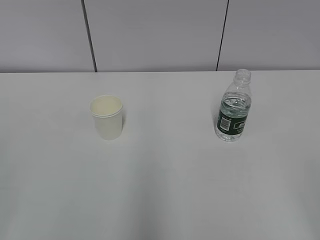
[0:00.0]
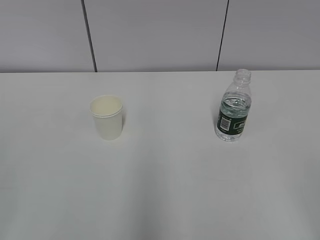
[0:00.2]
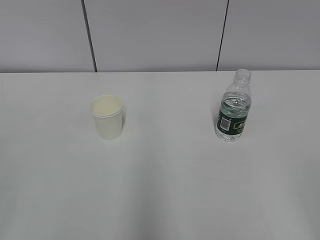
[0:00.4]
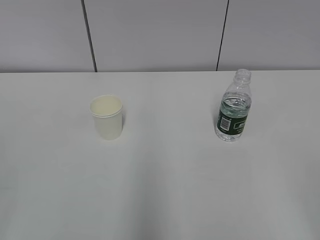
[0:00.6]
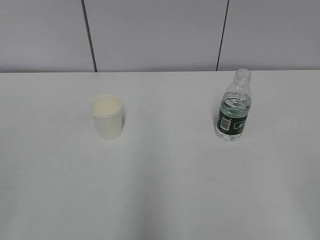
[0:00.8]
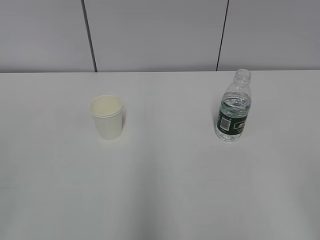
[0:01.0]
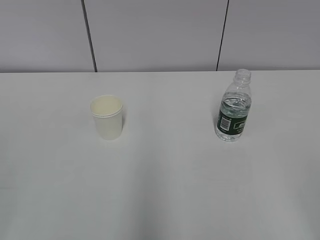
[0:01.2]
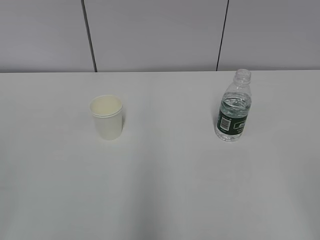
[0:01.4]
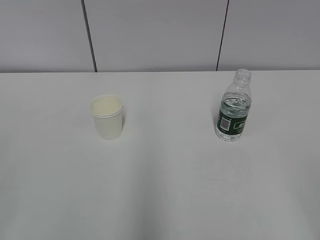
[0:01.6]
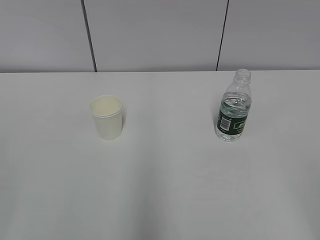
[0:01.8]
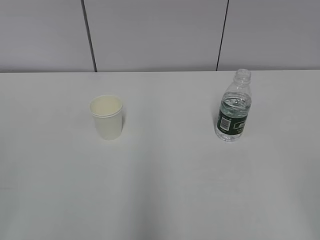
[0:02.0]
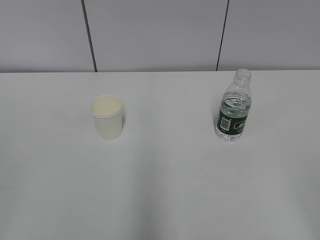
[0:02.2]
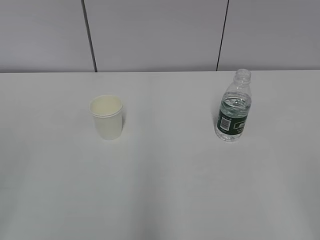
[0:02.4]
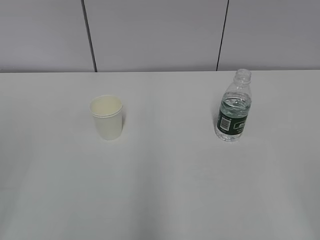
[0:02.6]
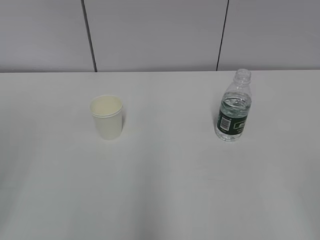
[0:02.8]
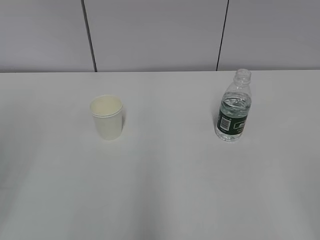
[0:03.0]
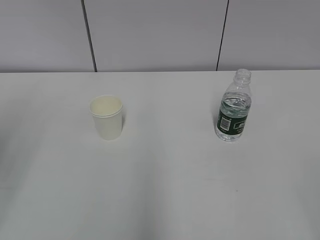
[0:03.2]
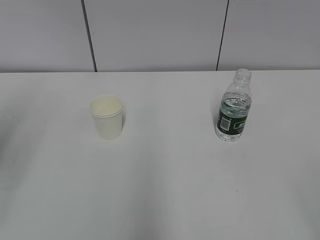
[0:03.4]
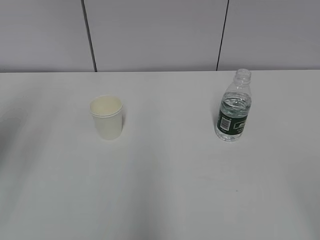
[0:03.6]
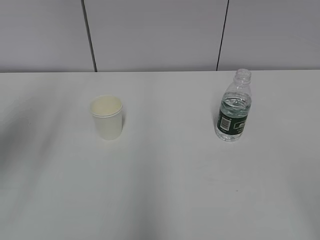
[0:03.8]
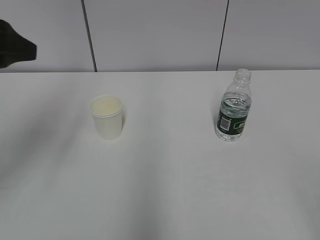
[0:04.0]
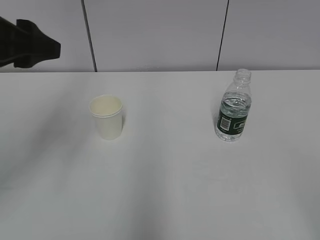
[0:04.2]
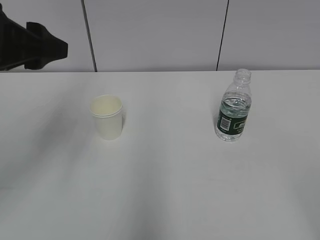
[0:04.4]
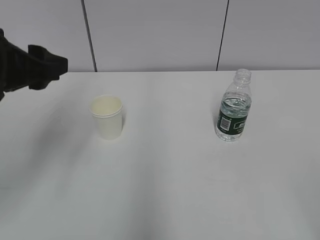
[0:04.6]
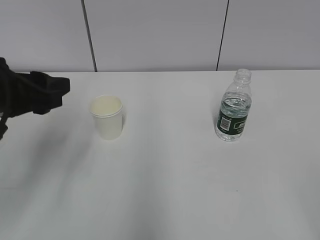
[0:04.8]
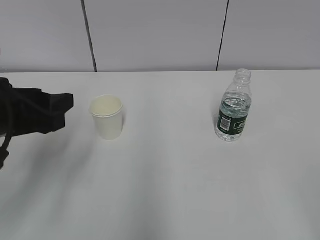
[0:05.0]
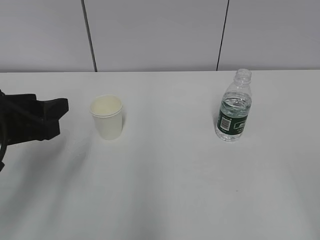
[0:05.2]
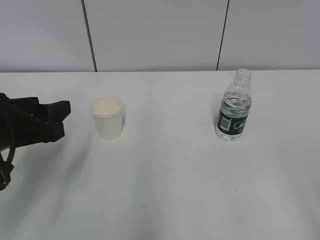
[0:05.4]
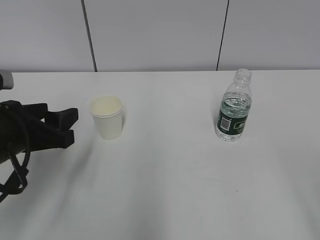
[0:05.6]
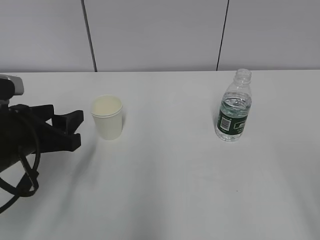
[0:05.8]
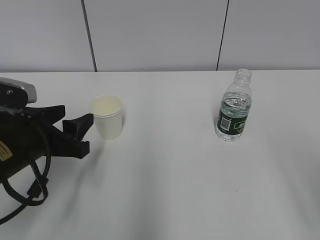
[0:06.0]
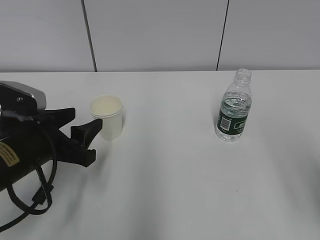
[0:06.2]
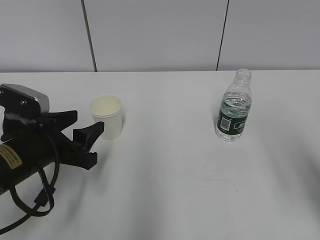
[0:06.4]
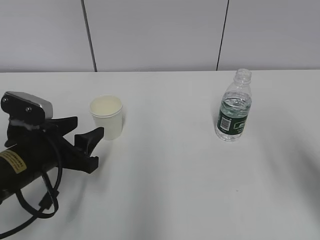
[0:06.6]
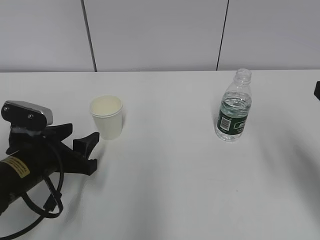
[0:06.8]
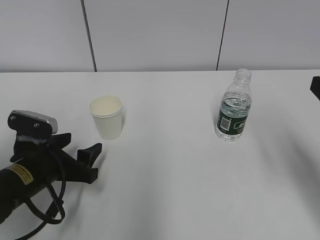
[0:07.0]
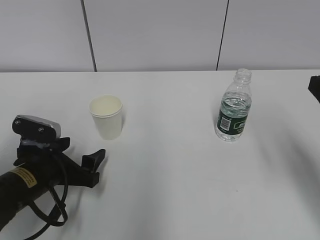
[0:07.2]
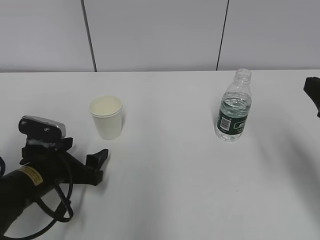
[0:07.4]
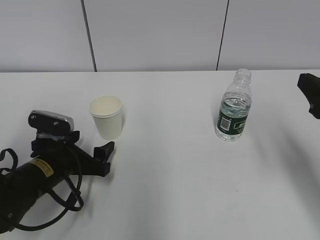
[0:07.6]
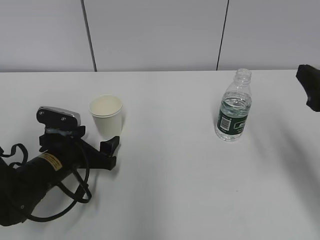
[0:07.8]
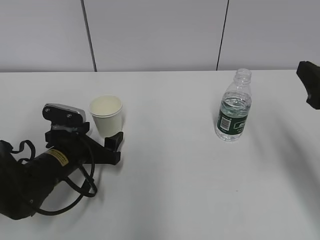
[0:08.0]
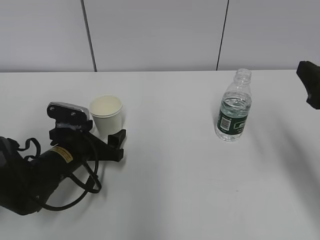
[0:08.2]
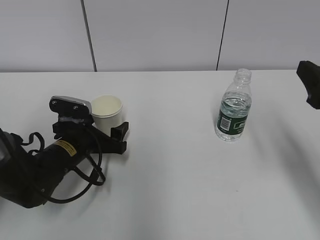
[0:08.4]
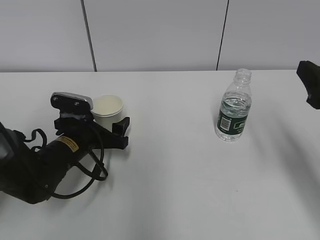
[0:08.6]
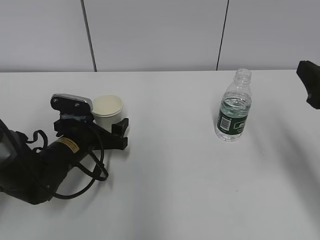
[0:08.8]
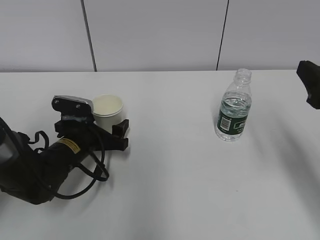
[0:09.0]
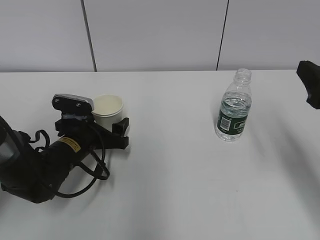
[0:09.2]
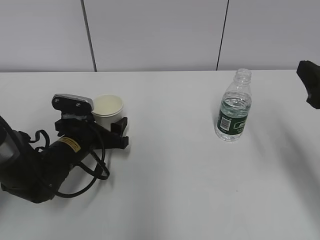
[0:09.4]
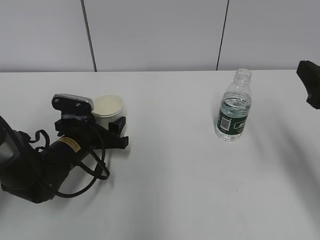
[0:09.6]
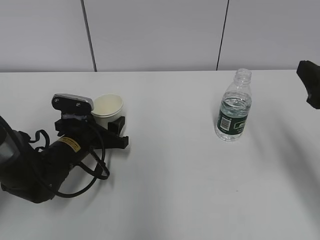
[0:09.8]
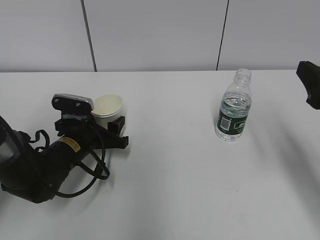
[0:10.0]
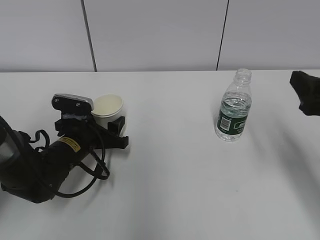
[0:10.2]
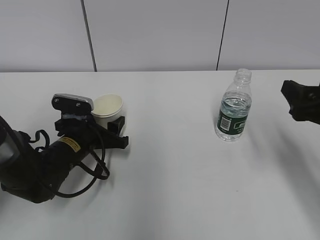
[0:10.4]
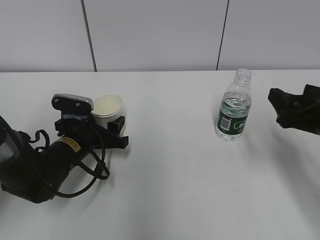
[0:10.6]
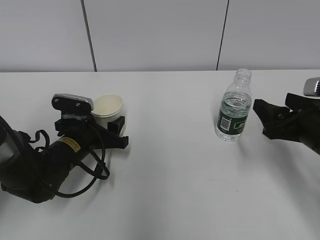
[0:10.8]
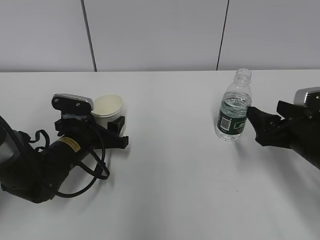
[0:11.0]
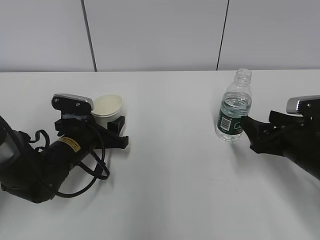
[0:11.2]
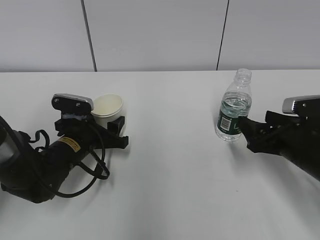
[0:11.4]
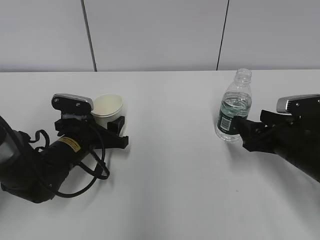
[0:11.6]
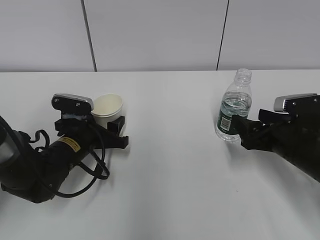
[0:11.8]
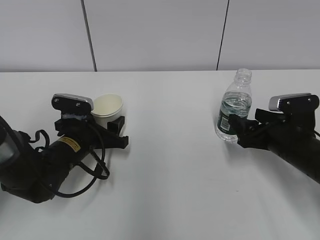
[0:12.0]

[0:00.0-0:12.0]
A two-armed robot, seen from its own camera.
Step, 0:00.0 to 0:11.6: Grab the paper cup with the left hand.
0:03.0 to 0:04.4: The left gripper shifts some 20 cm forward and to the right.
0:04.4 to 0:06.0: The left gripper goes about 15 cm downward.
0:06.0 to 0:07.6: The left gripper is displaced downward by approximately 10 cm, and opens its fingers, while the right gripper moves forward, some 15 cm.
0:07.6 to 0:09.0: The left gripper heads forward, covering roughly 5 cm.
0:09.0 to 0:10.4: The left gripper closes.
0:10.4 to 0:12.0: The right gripper travels downward and forward by approximately 15 cm.

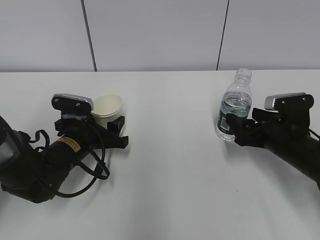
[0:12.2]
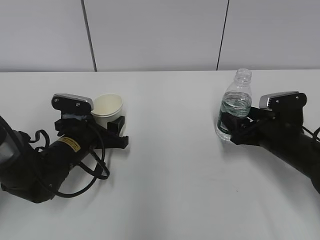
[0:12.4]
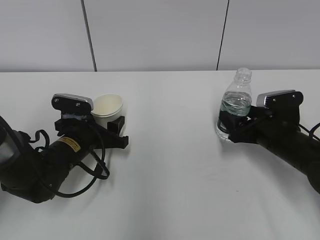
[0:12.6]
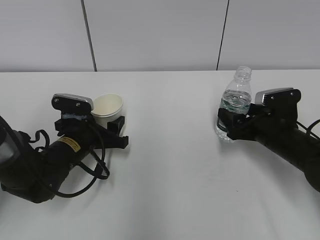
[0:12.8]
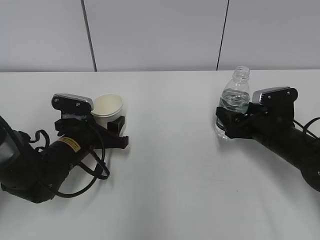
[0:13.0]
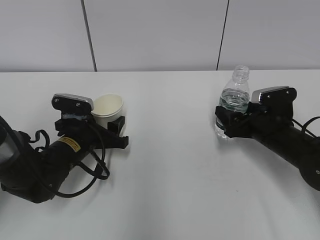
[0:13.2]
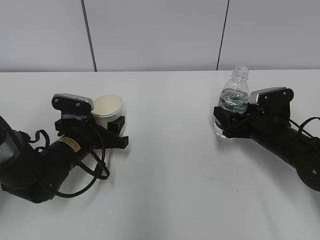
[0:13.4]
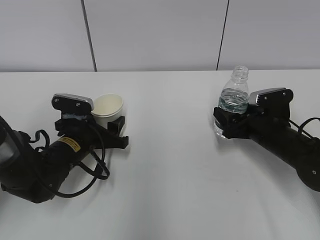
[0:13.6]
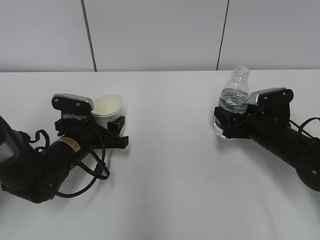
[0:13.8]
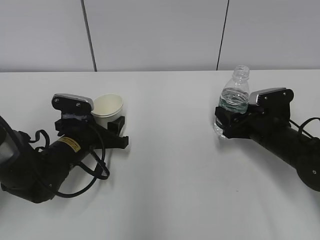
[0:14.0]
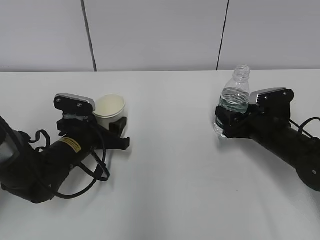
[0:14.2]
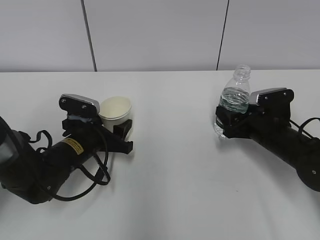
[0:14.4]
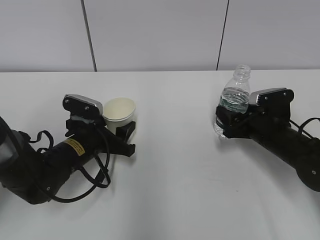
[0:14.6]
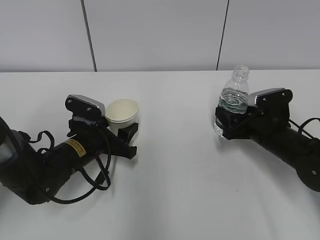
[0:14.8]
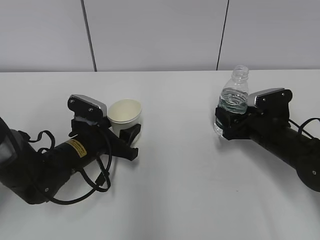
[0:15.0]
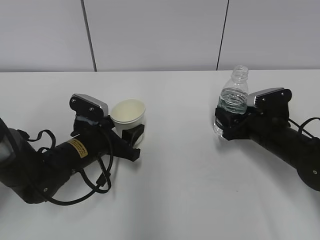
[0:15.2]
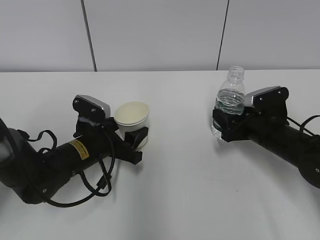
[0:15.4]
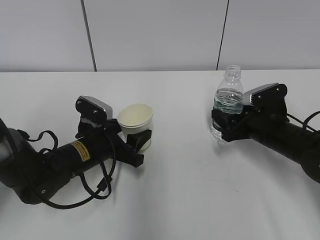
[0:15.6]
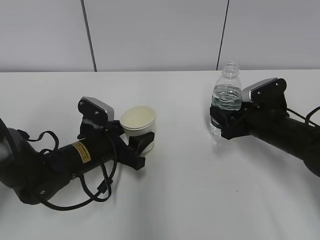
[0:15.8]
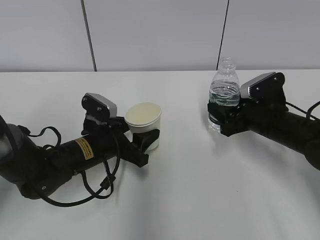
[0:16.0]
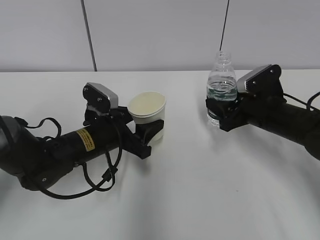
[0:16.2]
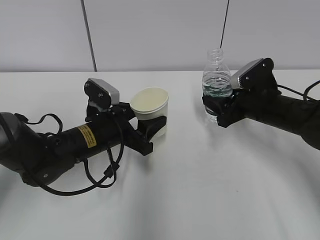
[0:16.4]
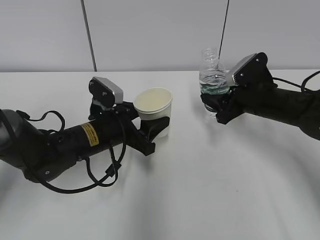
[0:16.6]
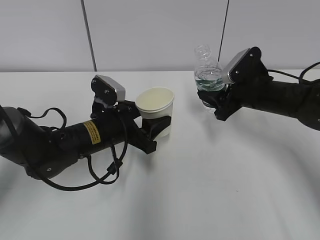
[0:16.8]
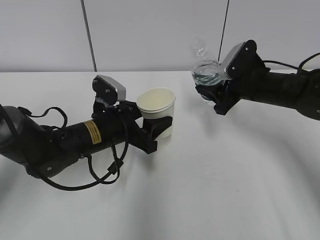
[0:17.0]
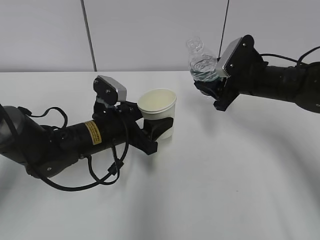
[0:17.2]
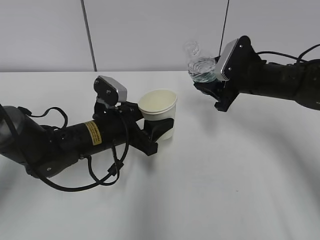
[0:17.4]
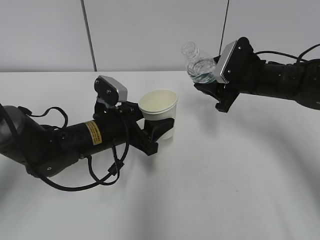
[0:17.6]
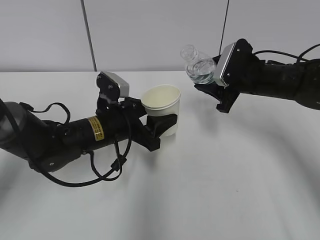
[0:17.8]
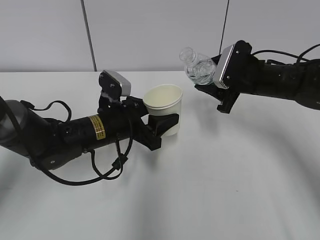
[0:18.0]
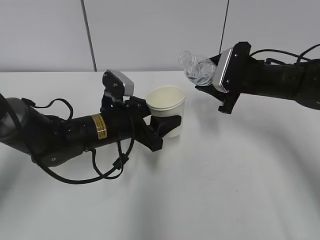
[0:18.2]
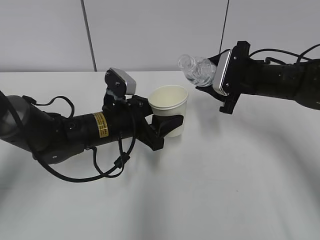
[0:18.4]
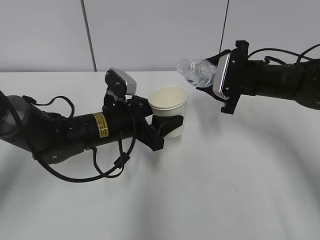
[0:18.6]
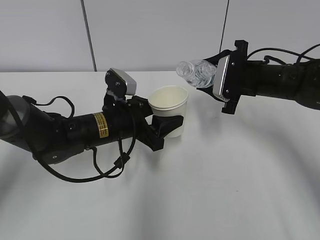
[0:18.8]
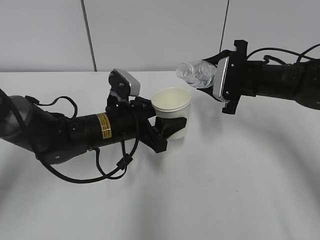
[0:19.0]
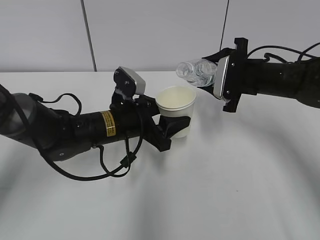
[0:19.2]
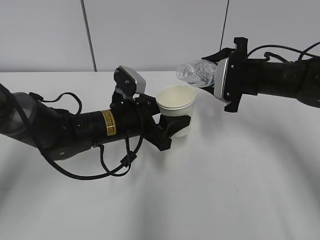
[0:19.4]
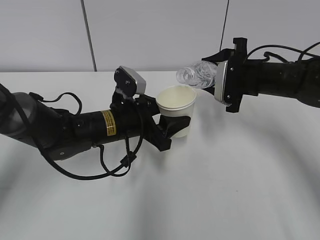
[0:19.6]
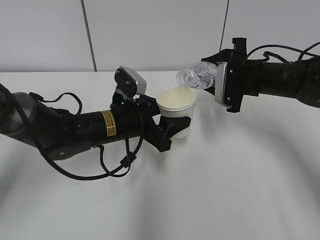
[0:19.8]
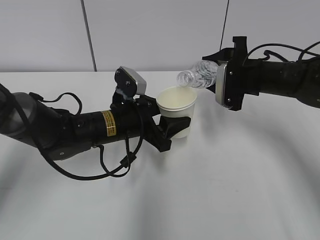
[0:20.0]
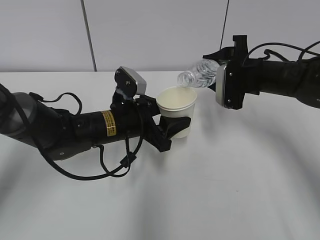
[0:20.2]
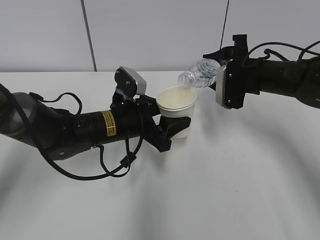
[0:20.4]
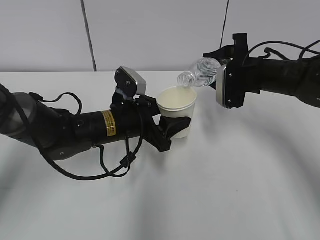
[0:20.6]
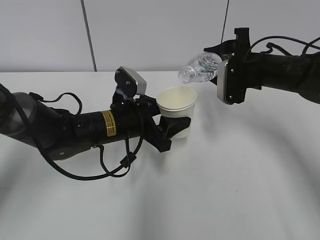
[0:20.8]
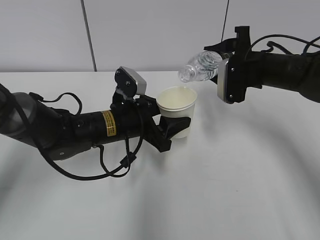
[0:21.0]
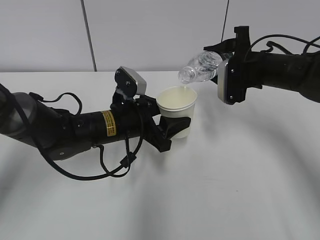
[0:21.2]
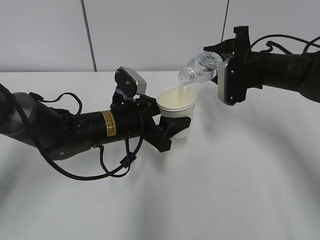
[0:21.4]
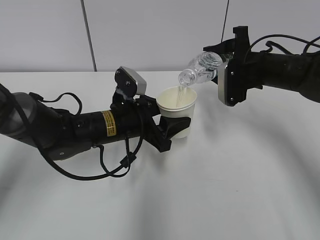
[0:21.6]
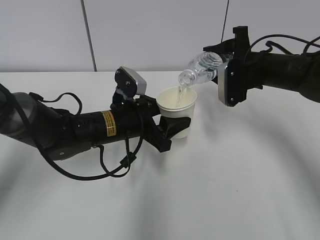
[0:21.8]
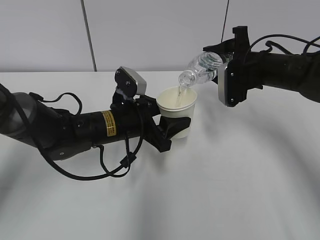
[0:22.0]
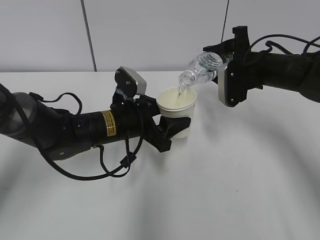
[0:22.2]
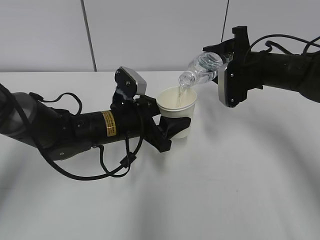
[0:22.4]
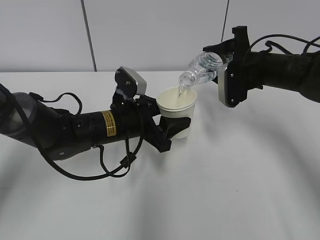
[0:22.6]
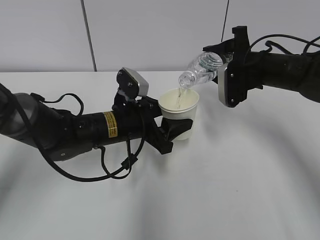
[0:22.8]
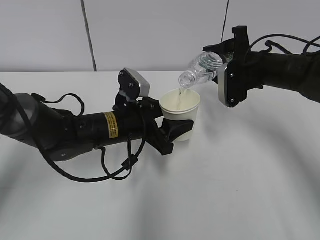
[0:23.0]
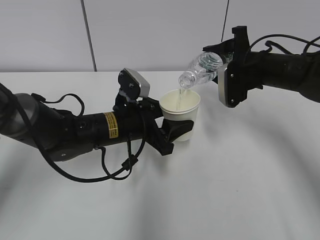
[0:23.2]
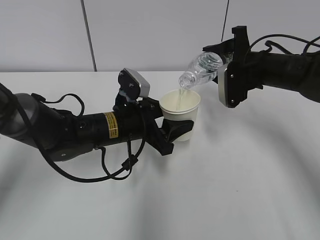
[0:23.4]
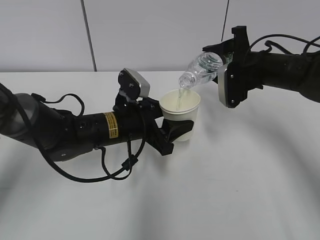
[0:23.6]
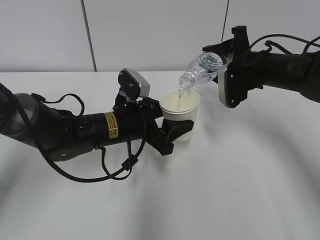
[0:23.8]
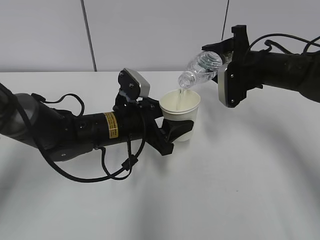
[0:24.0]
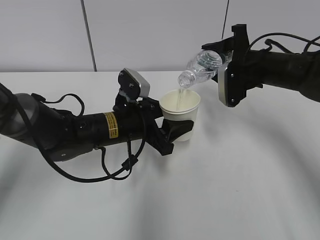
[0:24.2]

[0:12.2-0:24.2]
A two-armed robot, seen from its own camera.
Step, 0:12.2 to 0:12.8: Grab the water bottle with the right hand.
Step, 0:13.0 to 0:17.6: Lift the paper cup with the left hand.
Step, 0:17.8 to 0:22.2: Fill water with the left hand.
Step, 0:17.8 to 0:22.2: Pour water with the right hand.
0:12.2 to 0:13.8: The grippers stay close to where they were, moving slightly.
0:13.8 to 0:15.2: The right gripper closes.
0:15.2 to 0:16.6: The right gripper travels upward by approximately 5 cm.
0:19.8 to 0:22.6: The grippers stay close to where they were, moving slightly.
0:22.6 to 0:24.2: Neither gripper changes place.
